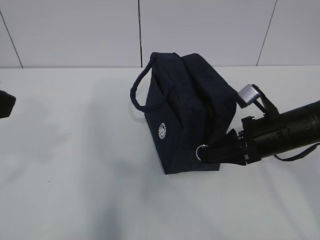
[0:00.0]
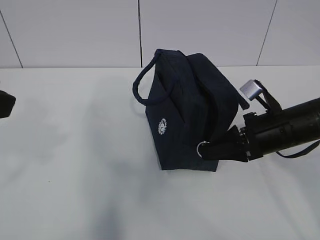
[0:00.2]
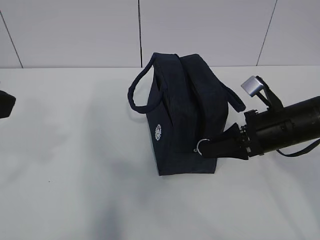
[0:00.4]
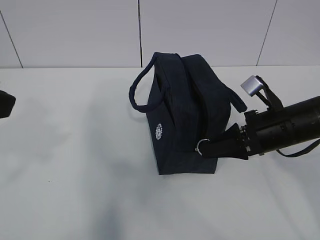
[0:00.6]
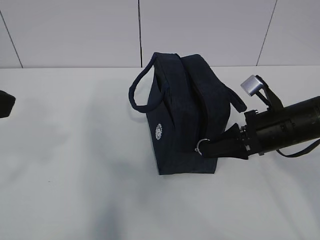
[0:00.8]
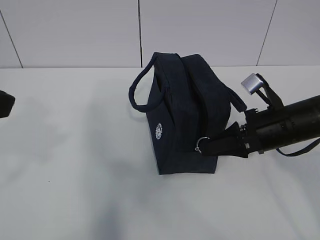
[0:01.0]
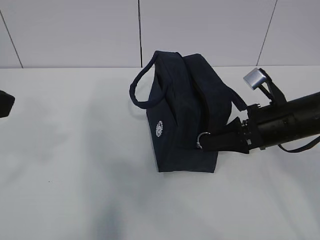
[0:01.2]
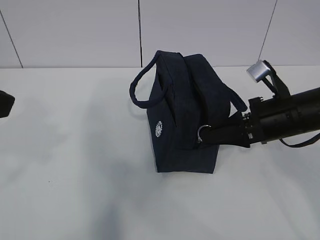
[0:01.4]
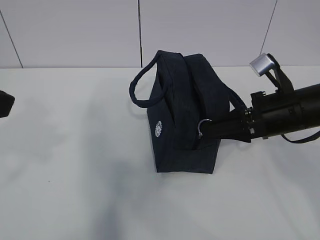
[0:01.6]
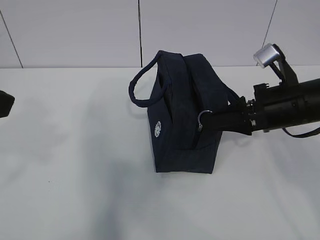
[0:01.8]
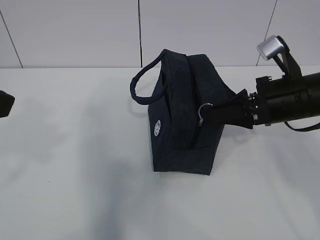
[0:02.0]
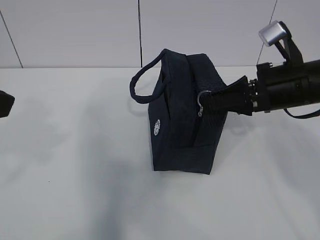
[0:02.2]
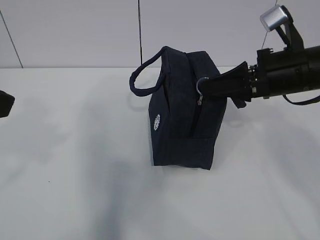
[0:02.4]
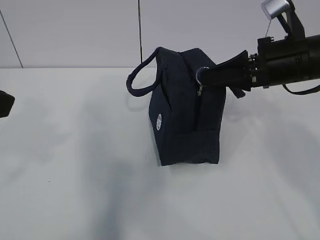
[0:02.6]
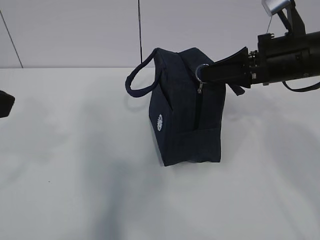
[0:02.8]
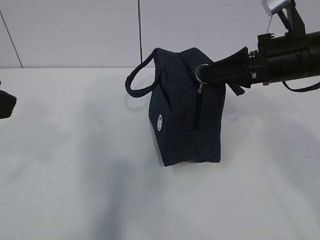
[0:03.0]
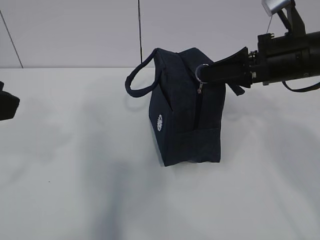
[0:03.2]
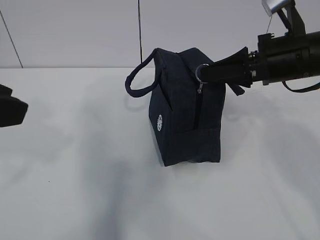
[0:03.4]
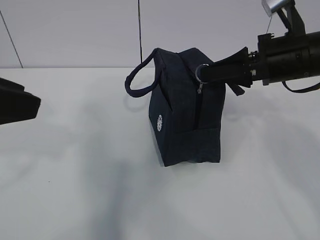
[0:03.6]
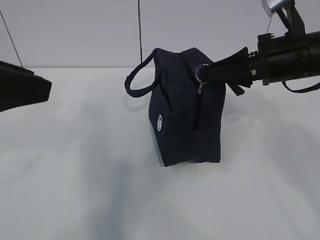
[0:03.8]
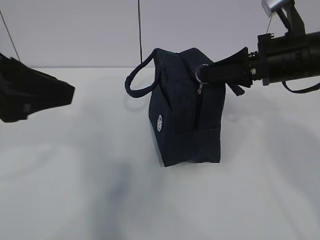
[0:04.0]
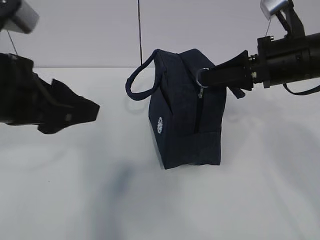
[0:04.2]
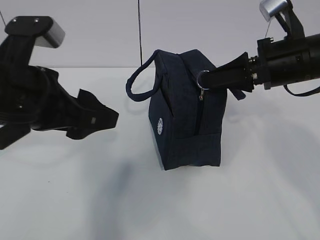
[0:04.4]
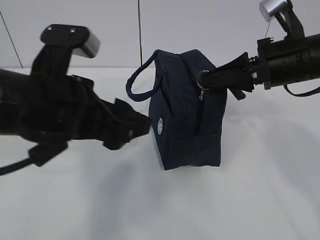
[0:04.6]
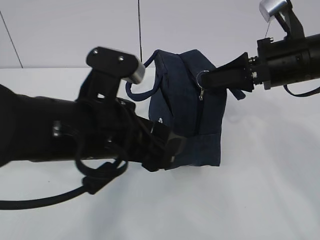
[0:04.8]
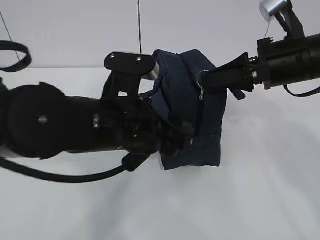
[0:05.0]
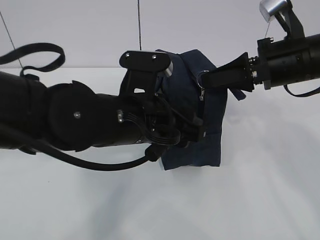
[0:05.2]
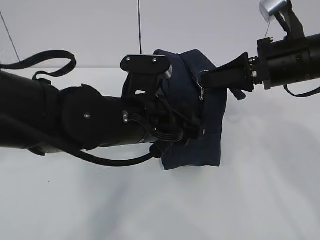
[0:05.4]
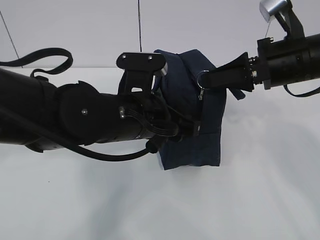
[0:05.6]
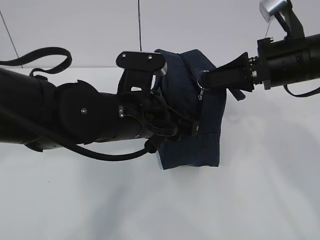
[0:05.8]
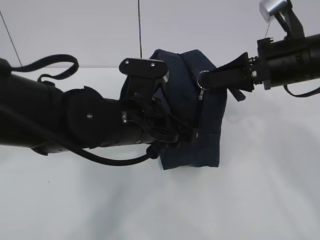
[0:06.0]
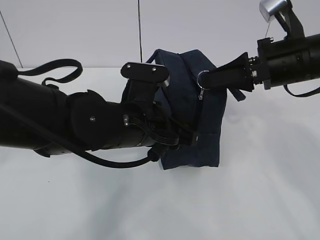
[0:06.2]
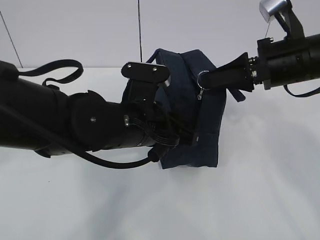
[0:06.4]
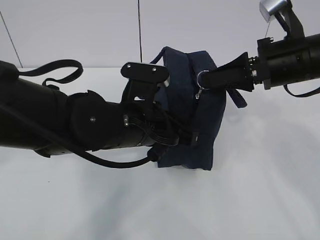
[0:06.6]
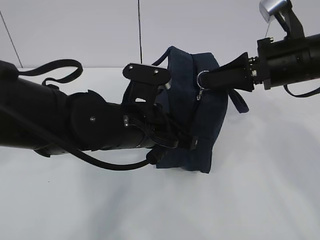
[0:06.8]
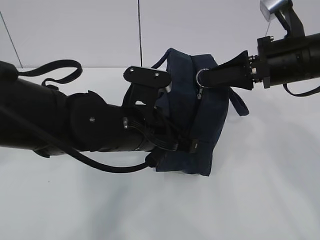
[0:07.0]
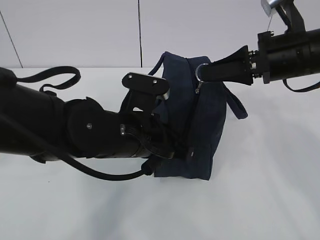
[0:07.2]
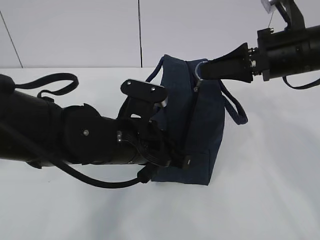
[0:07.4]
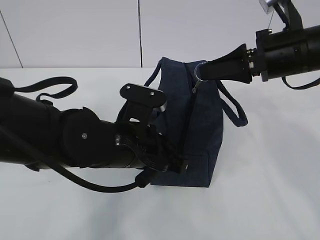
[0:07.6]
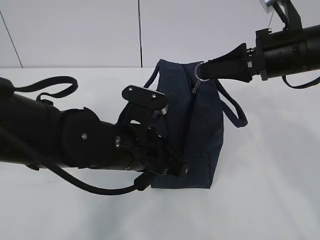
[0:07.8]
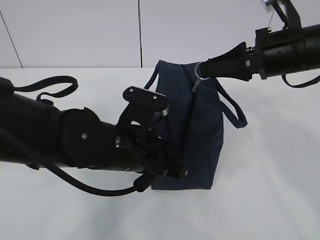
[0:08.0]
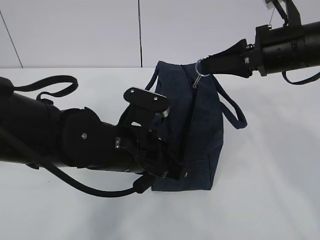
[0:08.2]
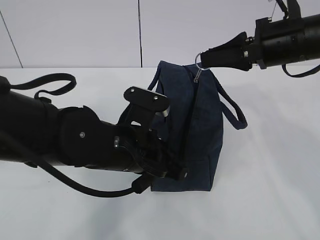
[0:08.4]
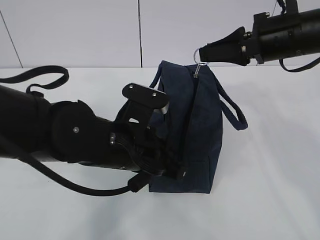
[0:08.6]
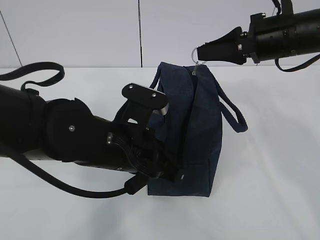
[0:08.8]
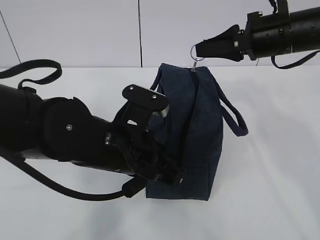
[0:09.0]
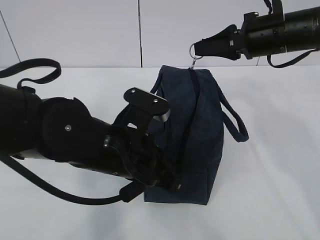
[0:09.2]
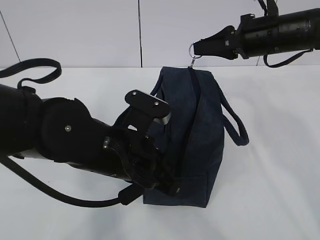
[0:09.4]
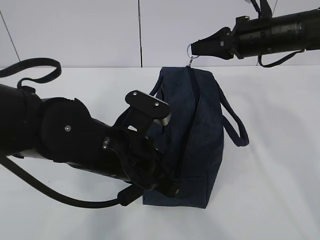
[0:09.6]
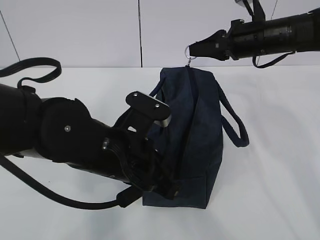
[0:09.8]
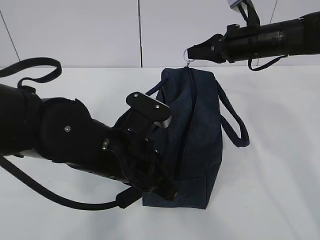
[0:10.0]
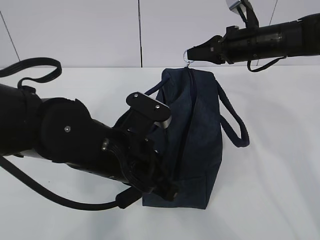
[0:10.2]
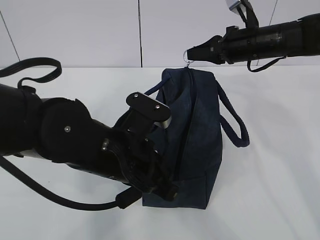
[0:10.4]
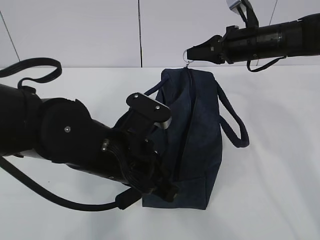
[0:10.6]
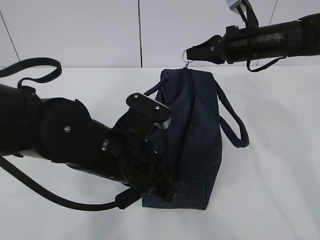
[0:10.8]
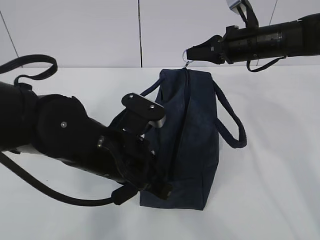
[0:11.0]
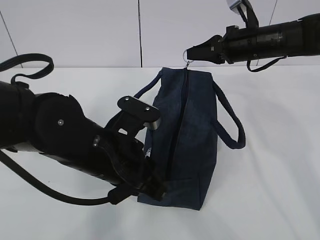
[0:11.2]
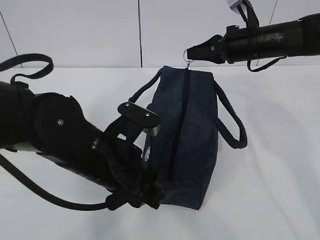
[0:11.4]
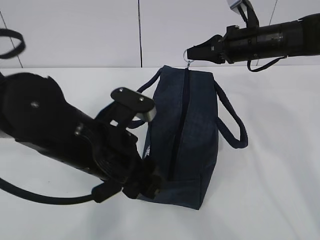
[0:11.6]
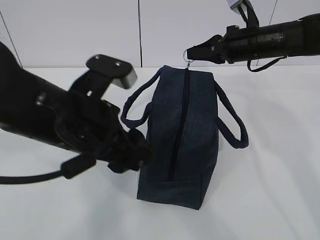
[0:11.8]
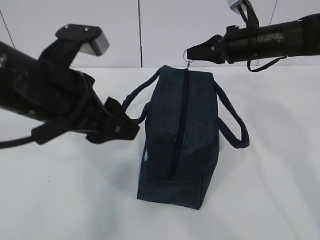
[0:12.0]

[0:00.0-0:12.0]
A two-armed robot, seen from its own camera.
Step, 0:01.0 to 0:08.4: Pull the zipper with your right hand.
0:00.0 to 0:01.6: The grippers move only a little.
0:01.6 to 0:03.0: The right gripper travels upward by about 5 cm.
0:03.0 to 0:04.4: The left gripper is displaced forward, downward and to the right by roughly 15 cm.
0:04.4 to 0:06.0: The left gripper goes some 15 cm to the right and downward.
0:06.0 to 0:07.6: The left gripper closes up.
0:07.6 to 0:09.0: The grippers stay close to where they were, moving slightly.
0:09.0 to 0:10.4: The right gripper moves forward and downward, some 10 cm.
0:10.4 to 0:12.0: The left gripper travels upward and to the left by some 10 cm, and opens its fingers.

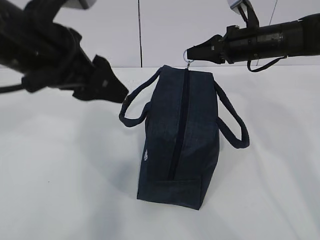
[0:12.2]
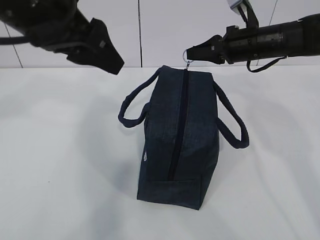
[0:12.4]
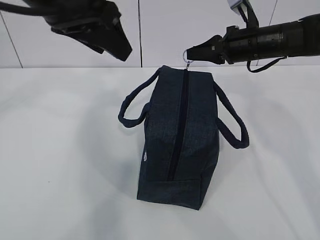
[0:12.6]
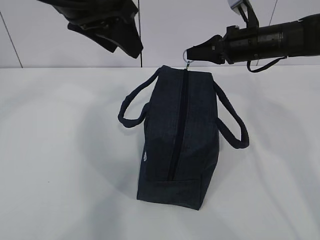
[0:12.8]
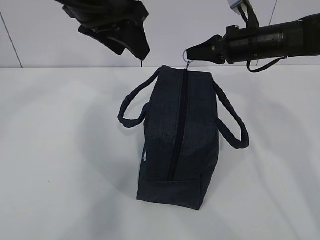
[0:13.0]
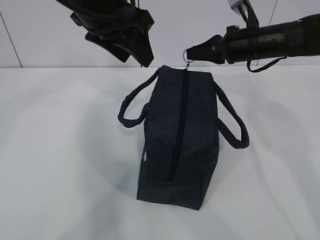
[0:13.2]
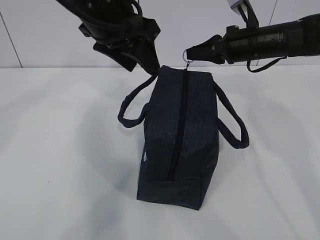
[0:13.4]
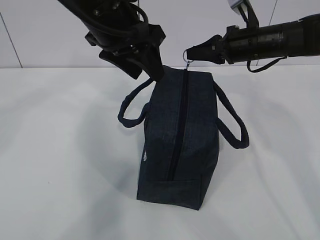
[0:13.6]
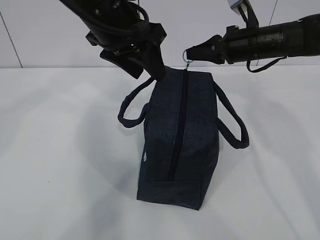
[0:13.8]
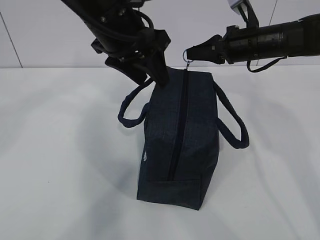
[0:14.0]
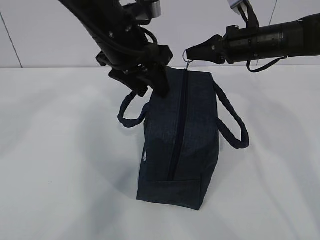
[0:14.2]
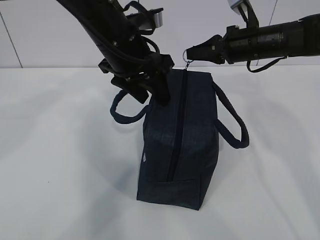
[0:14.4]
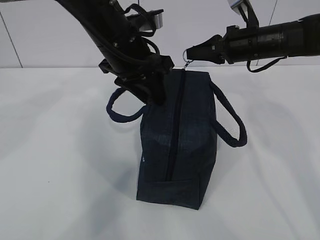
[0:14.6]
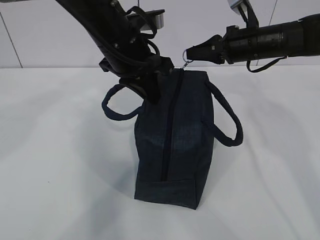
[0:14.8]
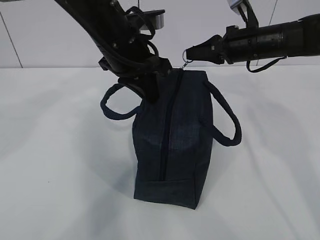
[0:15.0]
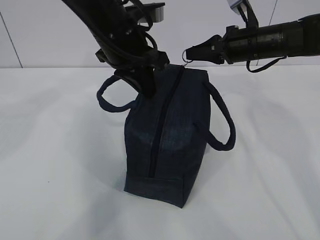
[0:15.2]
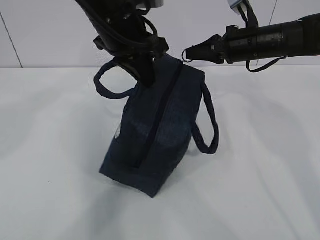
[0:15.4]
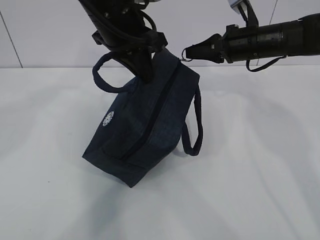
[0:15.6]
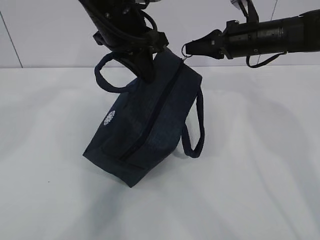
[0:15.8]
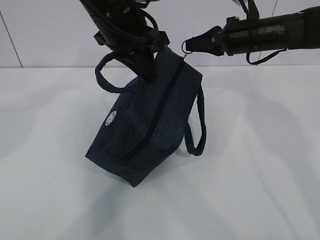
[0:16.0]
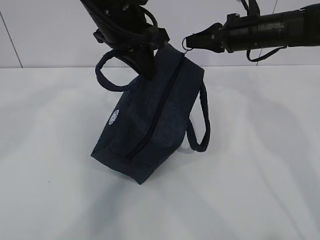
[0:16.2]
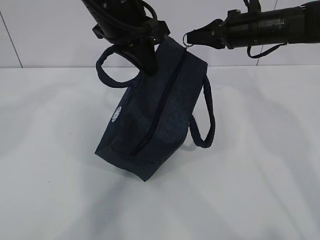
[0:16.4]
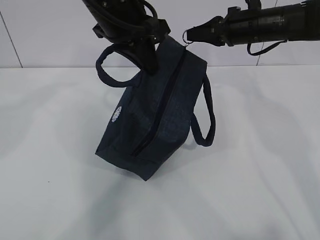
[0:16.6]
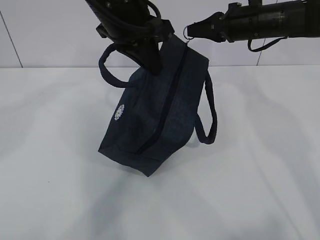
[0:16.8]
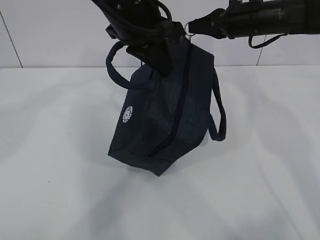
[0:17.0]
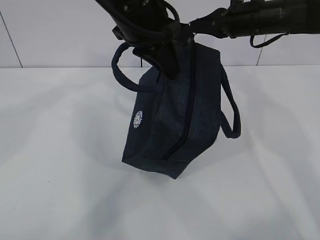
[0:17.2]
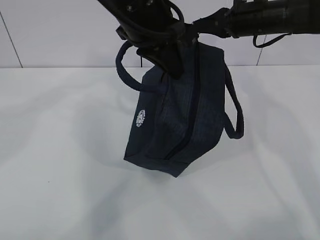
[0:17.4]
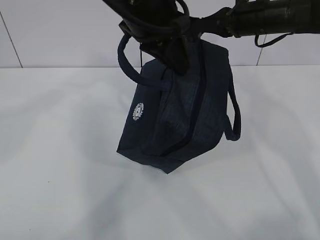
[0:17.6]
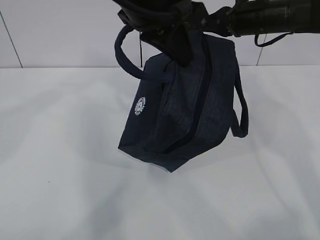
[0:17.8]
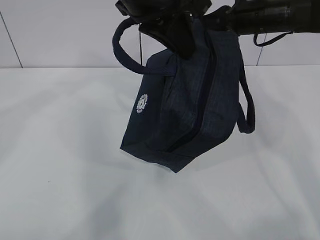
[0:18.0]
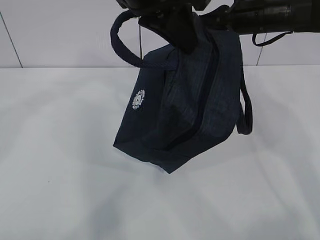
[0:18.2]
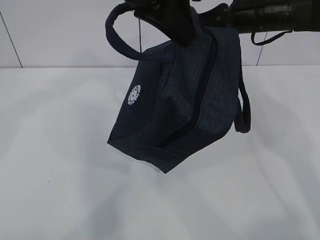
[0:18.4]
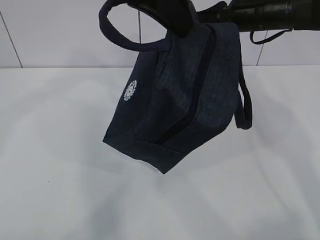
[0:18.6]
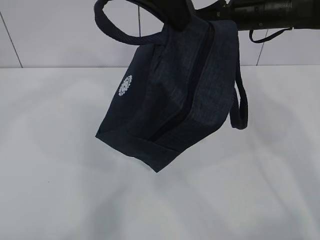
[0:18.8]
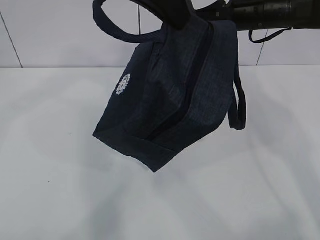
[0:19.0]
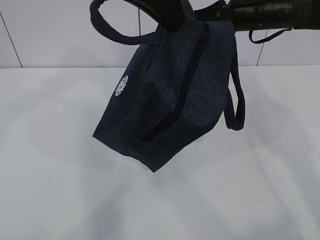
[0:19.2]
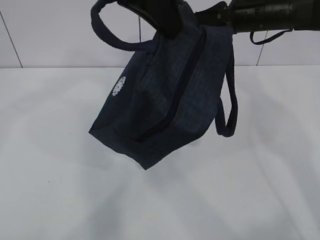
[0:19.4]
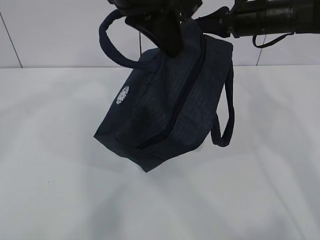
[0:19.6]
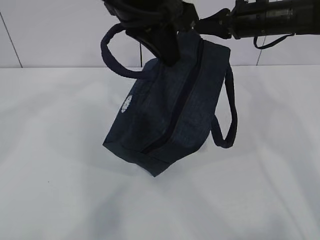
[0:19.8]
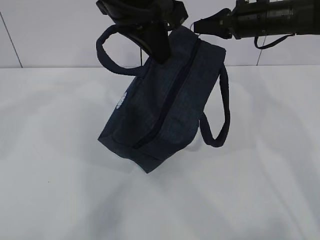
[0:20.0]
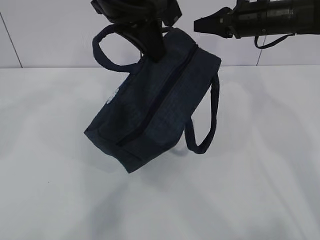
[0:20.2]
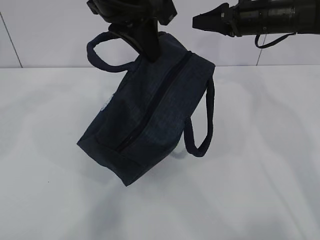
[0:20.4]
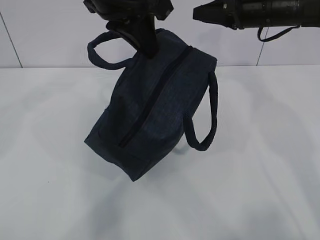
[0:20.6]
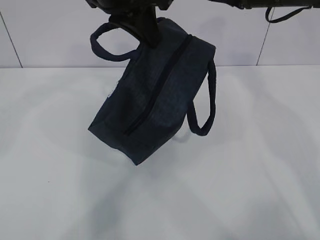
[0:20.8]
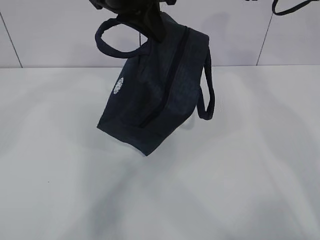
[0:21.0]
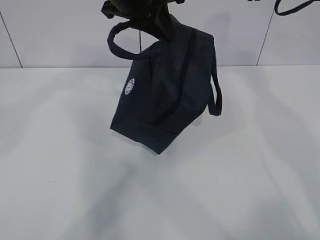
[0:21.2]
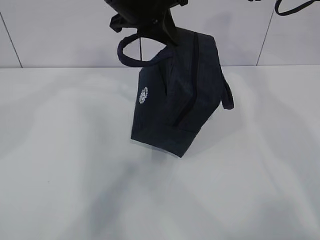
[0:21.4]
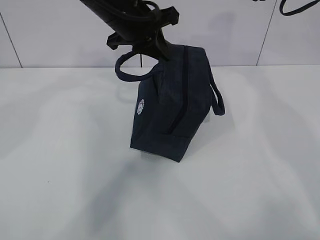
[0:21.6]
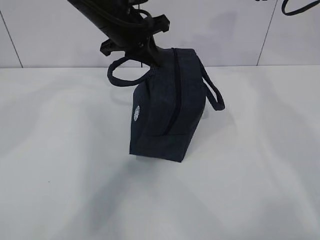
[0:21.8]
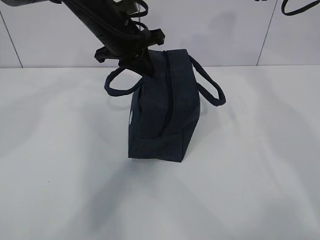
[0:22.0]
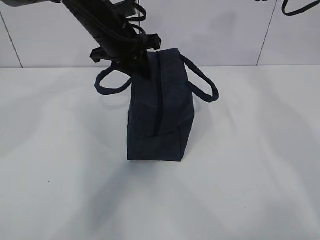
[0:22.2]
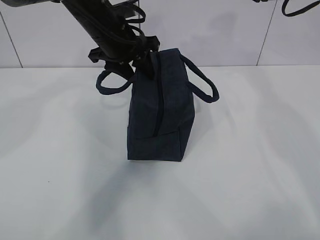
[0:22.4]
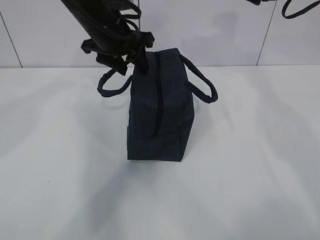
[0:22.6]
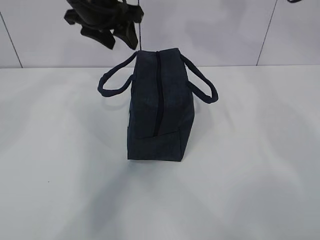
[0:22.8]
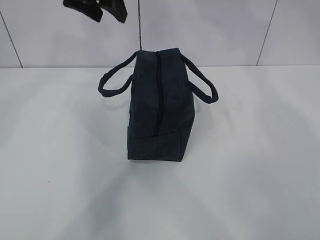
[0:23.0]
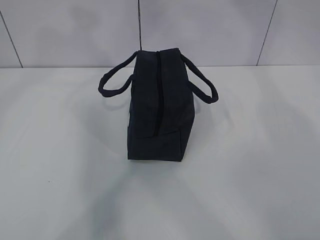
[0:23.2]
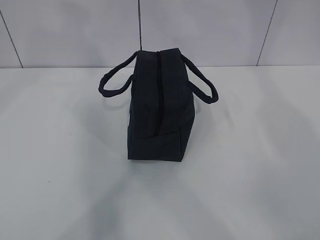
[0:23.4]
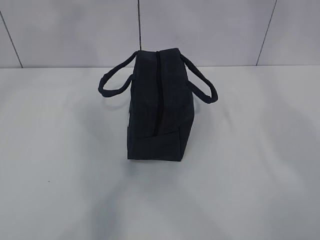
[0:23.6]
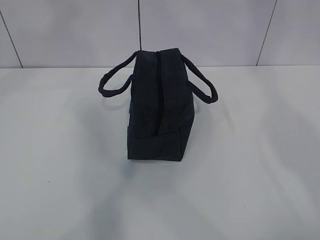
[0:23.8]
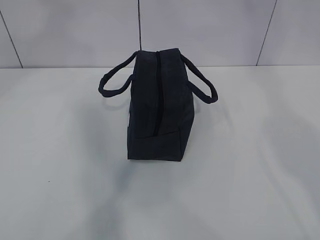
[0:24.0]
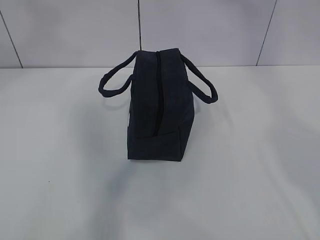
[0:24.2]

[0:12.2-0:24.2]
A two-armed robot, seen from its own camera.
0:12.2 to 0:13.8: The left gripper heads forward and to the right, covering some 10 cm.
0:13.8 to 0:15.2: The left gripper closes up.
0:16.6 to 0:18.2: The left gripper is displaced backward and upward by roughly 10 cm.
0:18.2 to 0:19.8: There are only small adjustments of the grippers.
0:19.8 to 0:21.2: The right gripper travels upward by approximately 5 cm, and opens its fingers, while the left gripper heads forward, covering roughly 5 cm.
0:21.2 to 0:22.6: The left gripper heads downward and forward, covering about 10 cm, and opens.
0:22.6 to 0:24.2: The grippers both shift upward and backward by about 35 cm.
